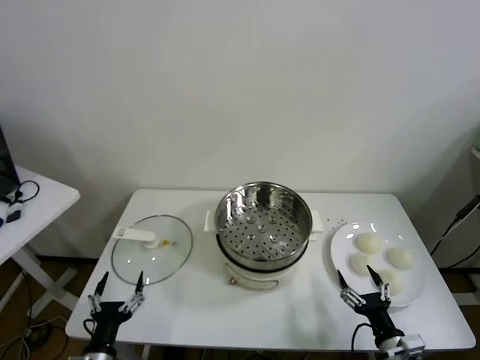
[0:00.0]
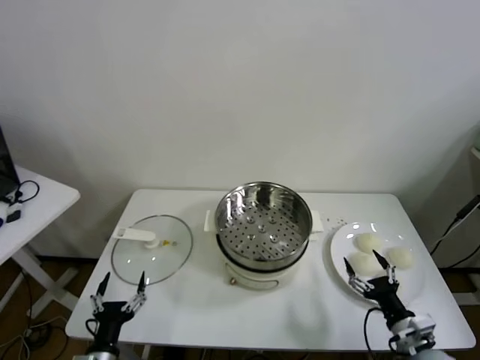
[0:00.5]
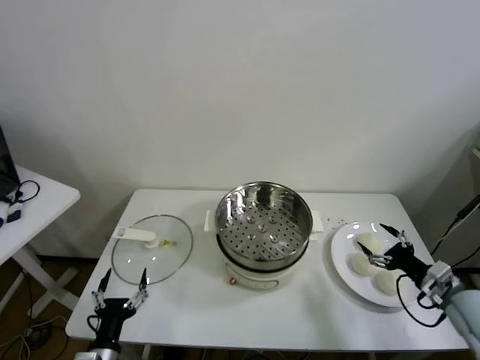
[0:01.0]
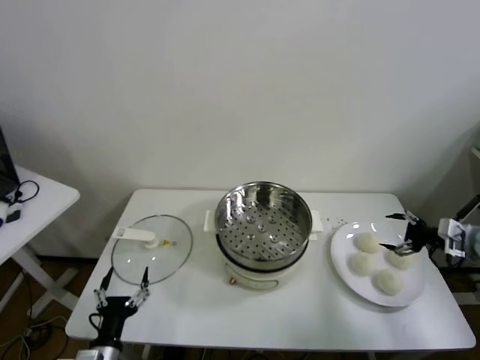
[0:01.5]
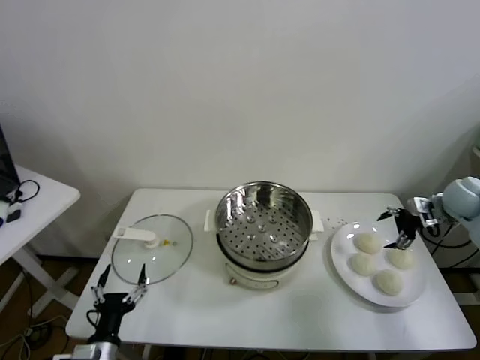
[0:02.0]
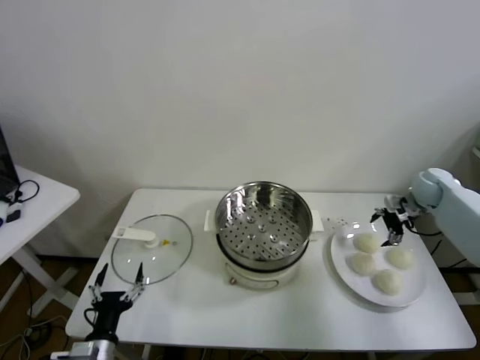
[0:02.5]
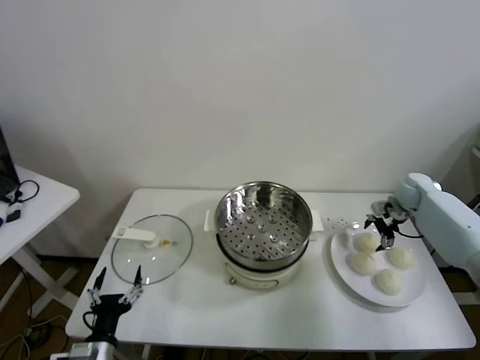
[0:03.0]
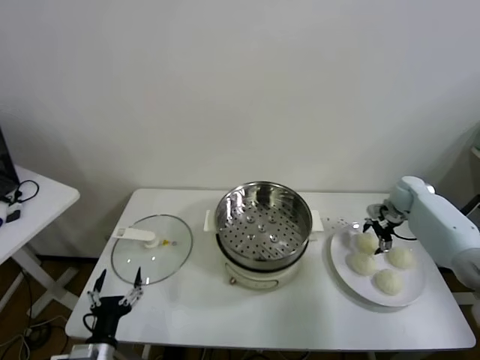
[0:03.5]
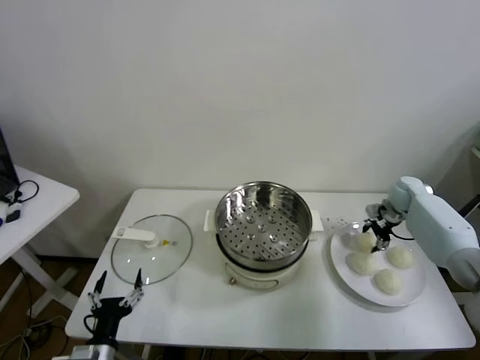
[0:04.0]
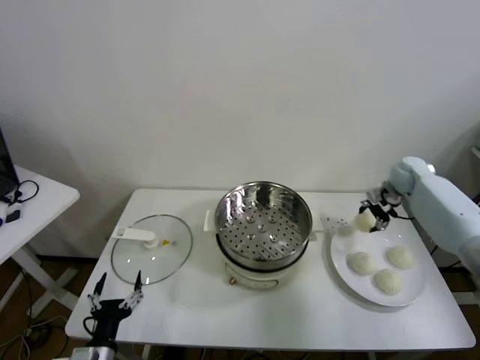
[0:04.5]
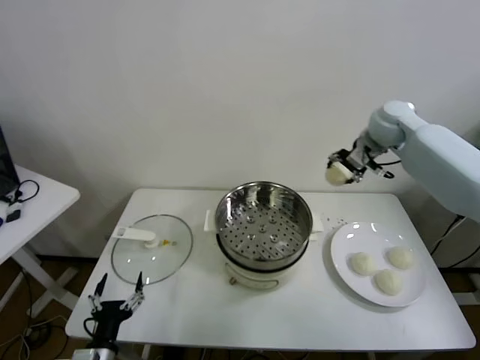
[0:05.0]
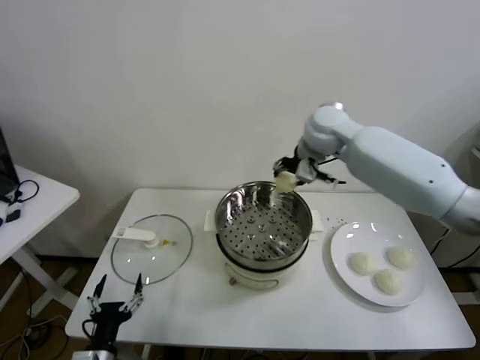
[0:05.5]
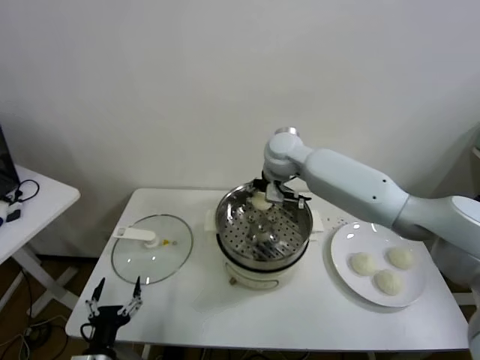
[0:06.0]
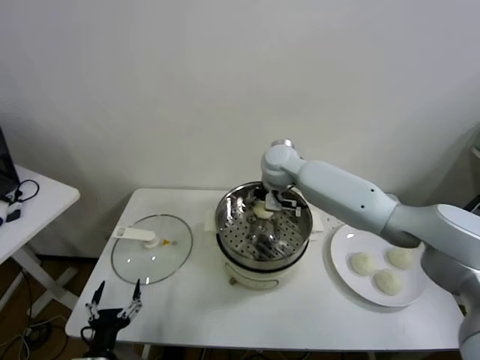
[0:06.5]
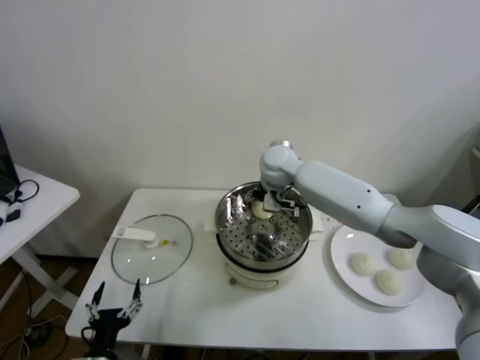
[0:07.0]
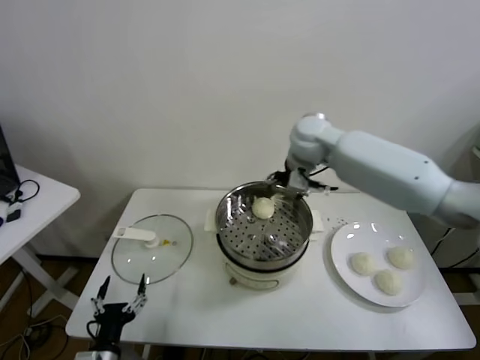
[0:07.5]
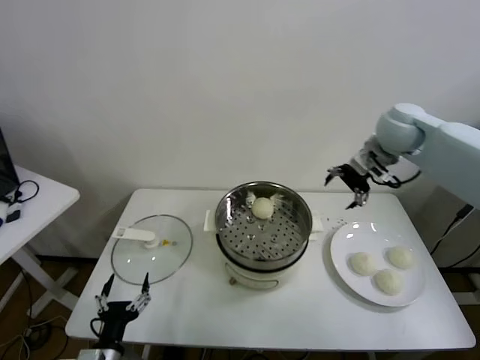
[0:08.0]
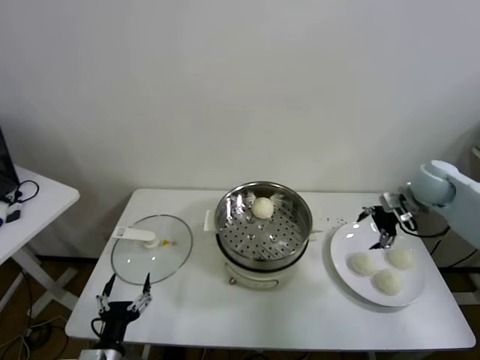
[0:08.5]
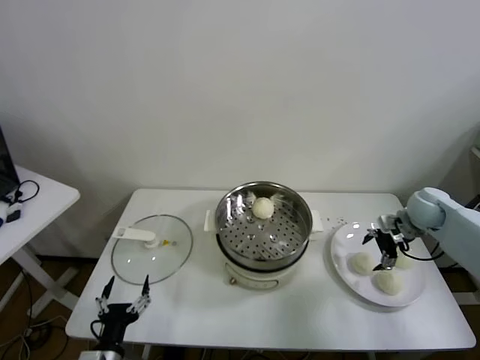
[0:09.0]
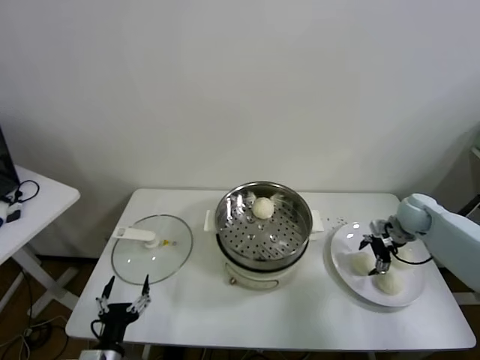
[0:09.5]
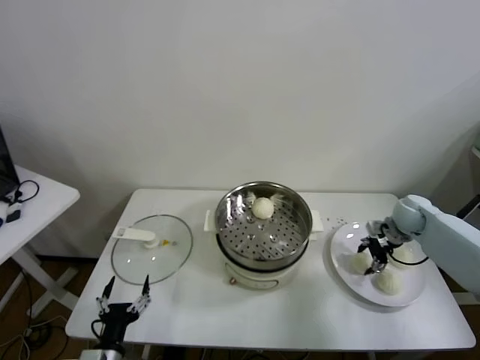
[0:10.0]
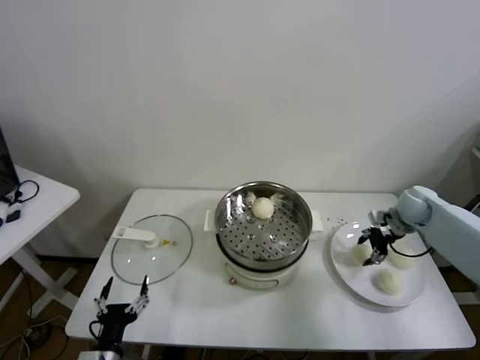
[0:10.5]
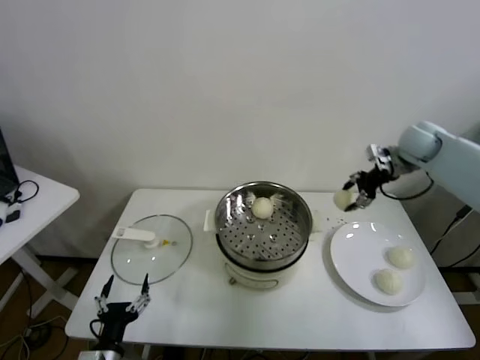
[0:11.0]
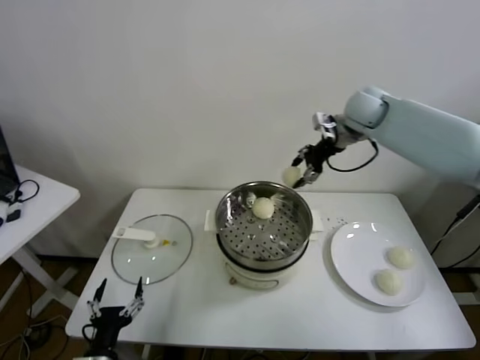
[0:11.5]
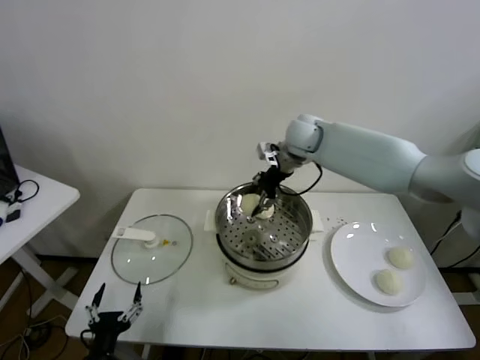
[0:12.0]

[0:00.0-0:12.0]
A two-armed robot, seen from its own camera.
Task of the whole recording: take steamed baozi put them in steamer.
Step, 0:00.0 to 0:03.5: Grasp the baozi in the plate with right gripper.
Step, 0:04.0 to 0:06.5: Place the baozi on the steamer with right gripper.
Step, 0:07.0 to 0:09.5: Grasp the baozi in the plate with right gripper.
0:02.0 to 0:04.0: The right gripper shifts about 10 cm downward, forward and to the left, and closes its fingers.
0:04.0 to 0:06.0: The right gripper moves to the left and upward, about 40 cm.
0:06.0 to 0:08.0: The right gripper goes some 25 cm to the right, and opens.
0:08.0 to 0:10.0: The right gripper goes roughly 25 cm downward and to the right, and closes.
0:10.0 to 0:12.0: The right gripper is displaced to the left and upward by roughly 35 cm.

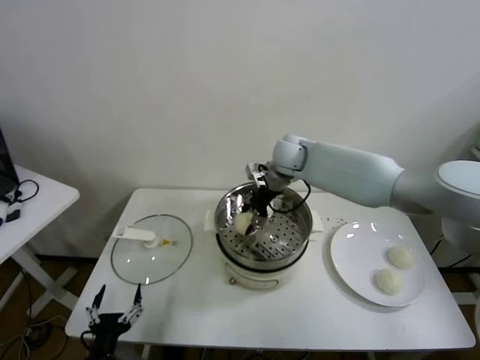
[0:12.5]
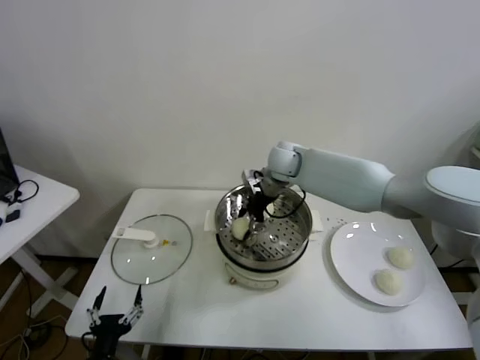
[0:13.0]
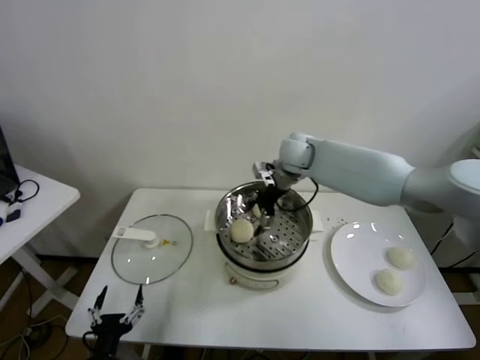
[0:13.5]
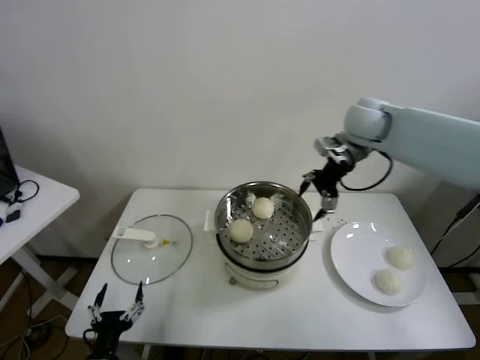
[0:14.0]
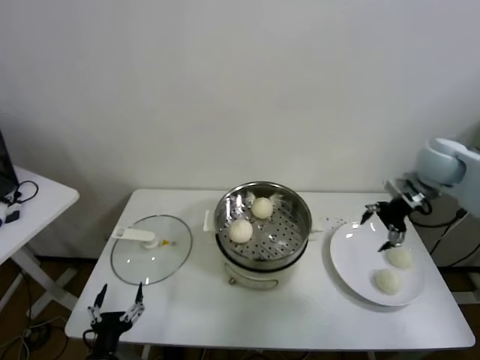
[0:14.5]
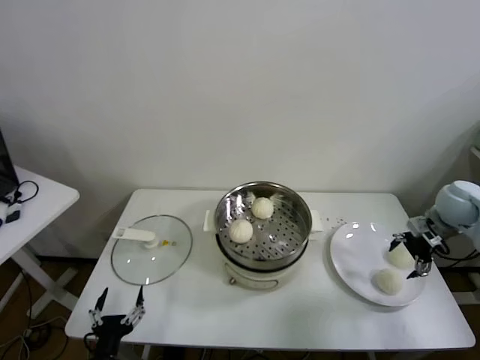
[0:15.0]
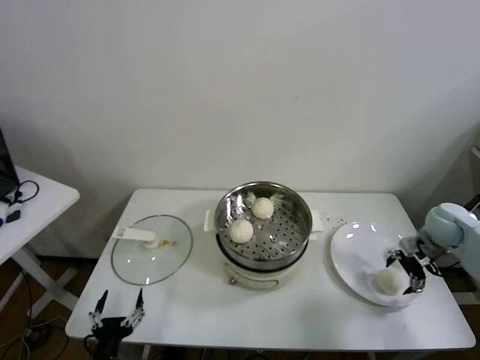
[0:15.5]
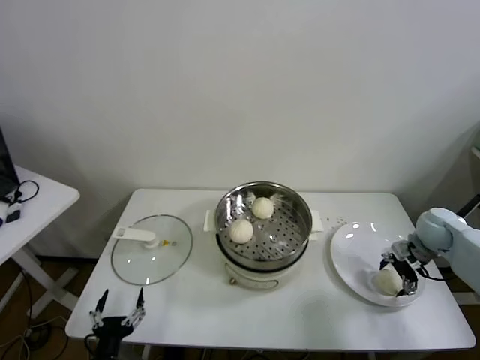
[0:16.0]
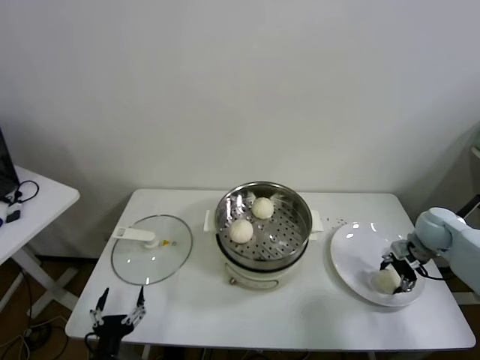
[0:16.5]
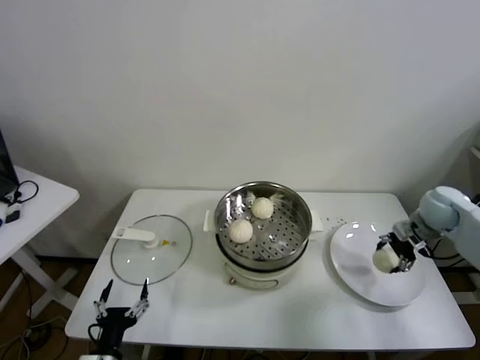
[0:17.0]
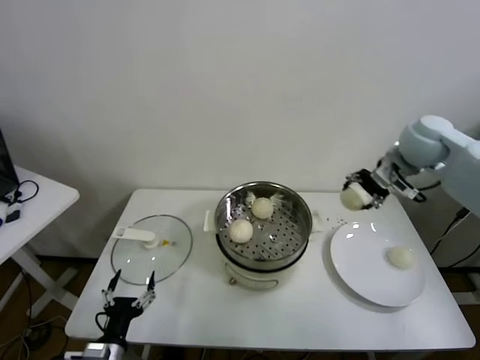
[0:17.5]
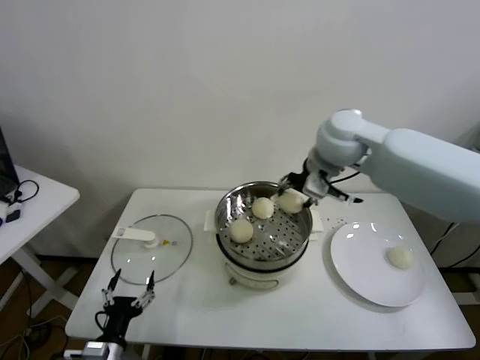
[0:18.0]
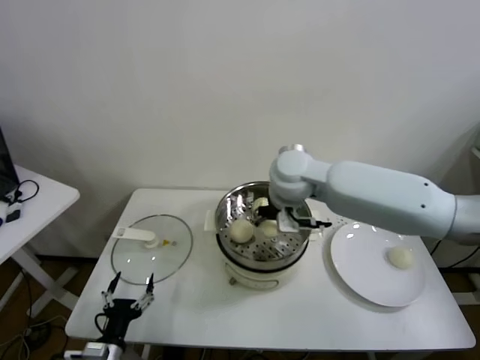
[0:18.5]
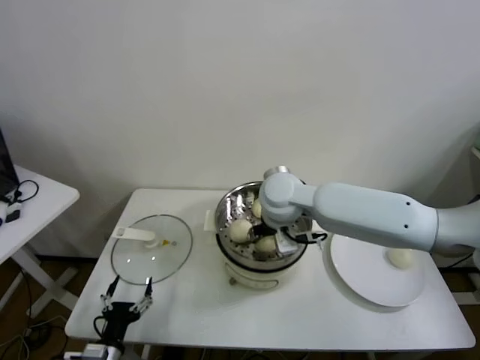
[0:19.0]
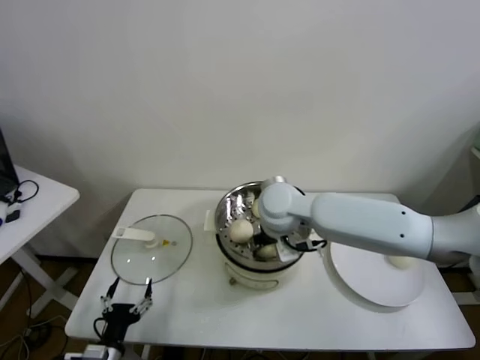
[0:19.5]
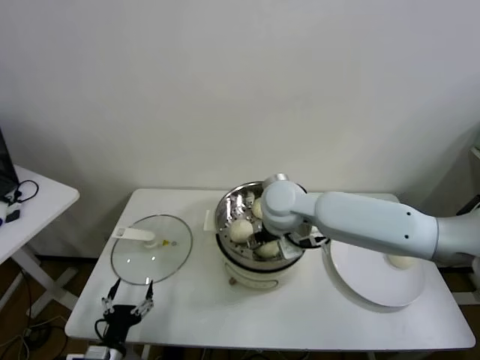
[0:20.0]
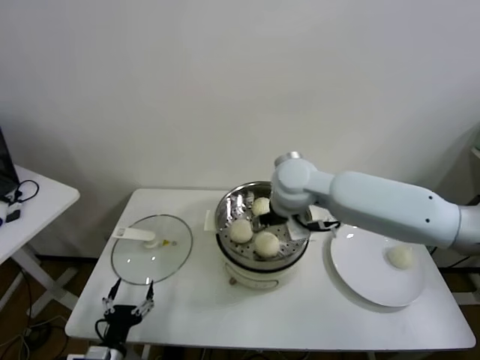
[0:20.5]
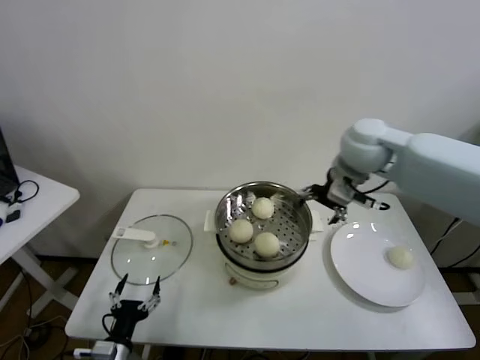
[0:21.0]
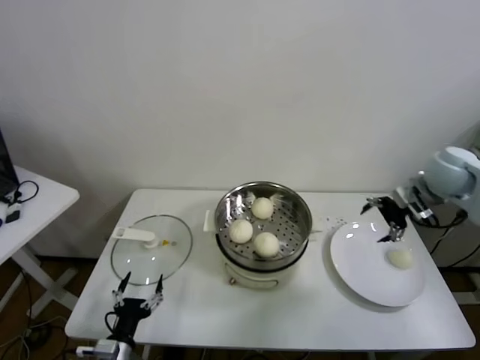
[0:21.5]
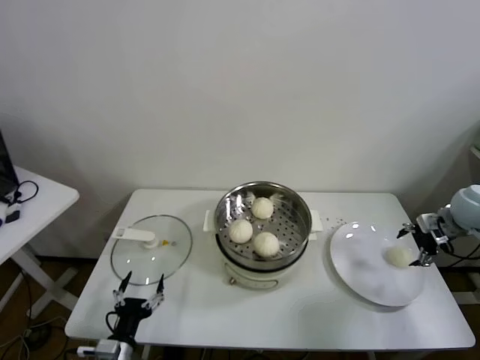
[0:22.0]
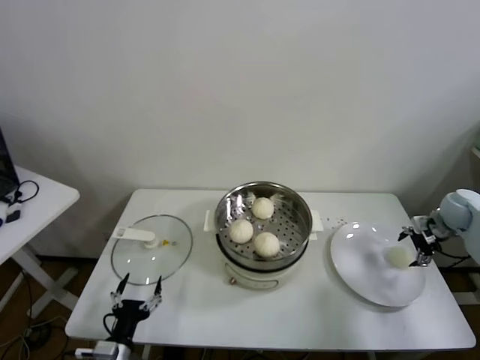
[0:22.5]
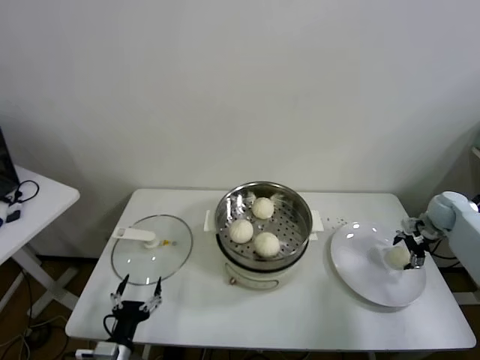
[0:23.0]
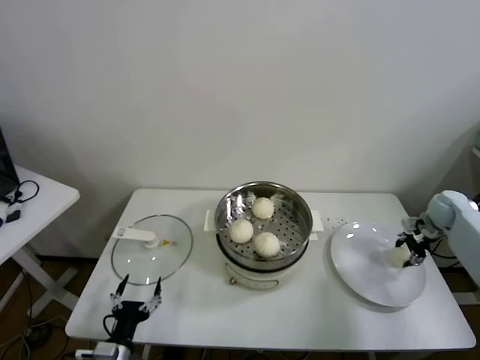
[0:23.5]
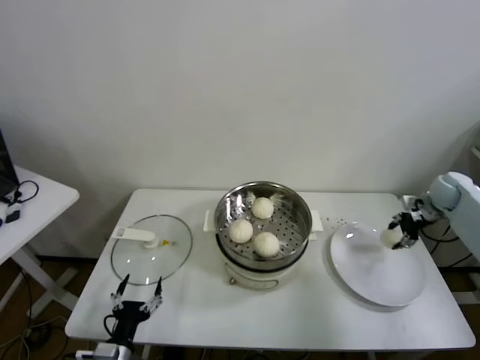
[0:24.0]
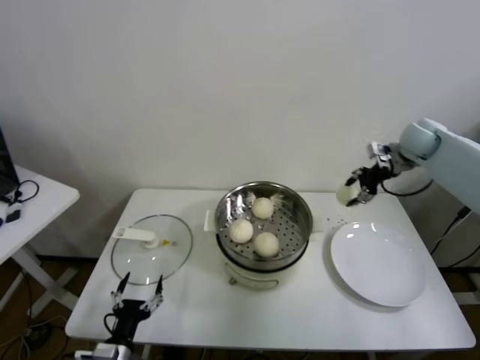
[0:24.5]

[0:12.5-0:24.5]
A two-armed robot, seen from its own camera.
Task of the whole recording: take steamed baozi put them in steamer.
Step, 0:13.5 to 0:16.0: Grasp the baozi in the plate with right gripper.
Step, 0:16.5 to 0:19.5: Place the baozi on the steamer with right gripper.
Step, 0:20.0 to 0:23.0: Grasp the baozi in the plate with right gripper.
0:12.5 to 0:14.5: The right gripper shifts roughly 30 cm to the right, and opens.
0:14.5 to 0:16.5: The right gripper is displaced downward by some 15 cm, and closes up.
0:16.5 to 0:18.5: The right gripper moves to the left and upward, approximately 40 cm.
0:18.5 to 0:20.5: The right gripper opens its fingers.
0:20.5 to 0:22.5: The right gripper moves to the right, approximately 40 cm.
0:22.5 to 0:24.5: The right gripper travels upward, to the left and forward by about 20 cm, and closes up.

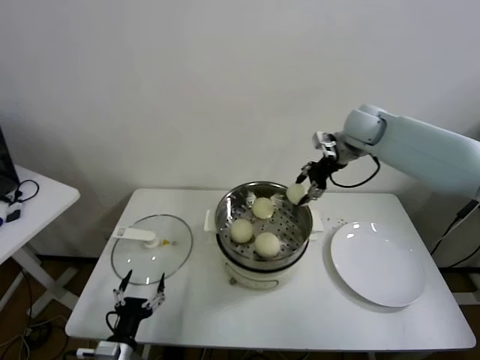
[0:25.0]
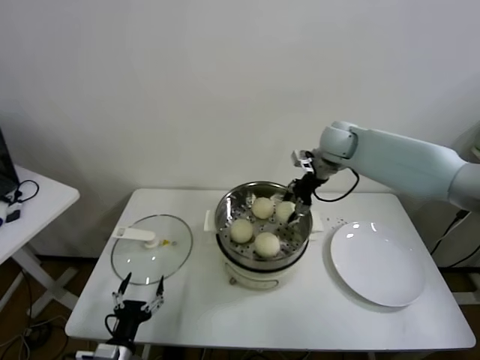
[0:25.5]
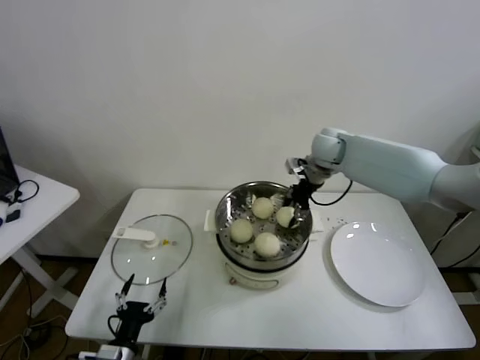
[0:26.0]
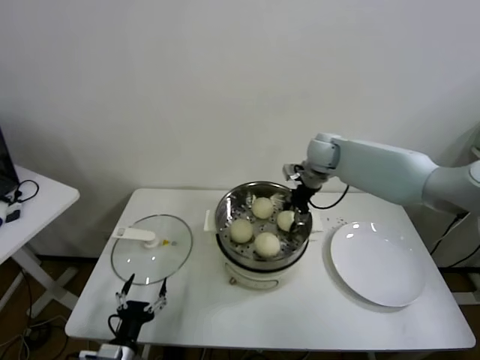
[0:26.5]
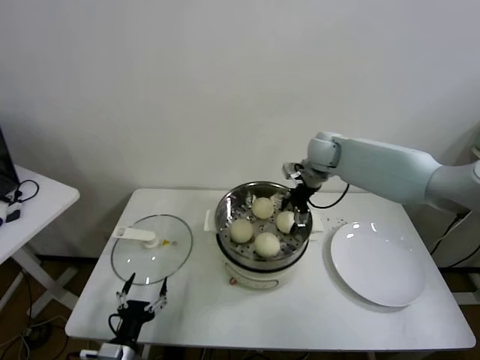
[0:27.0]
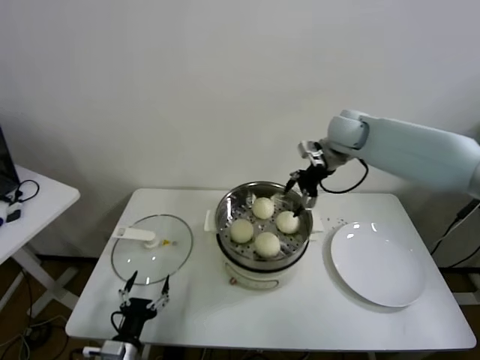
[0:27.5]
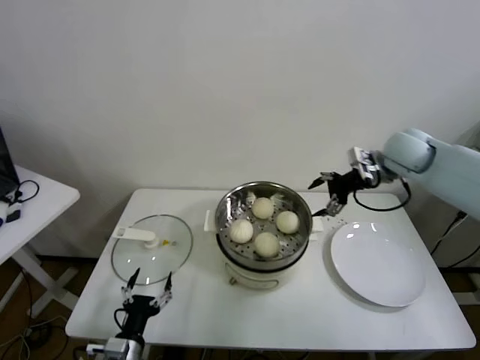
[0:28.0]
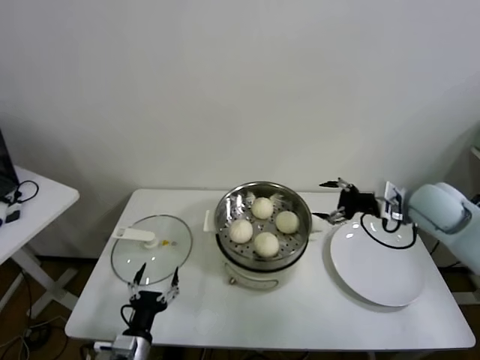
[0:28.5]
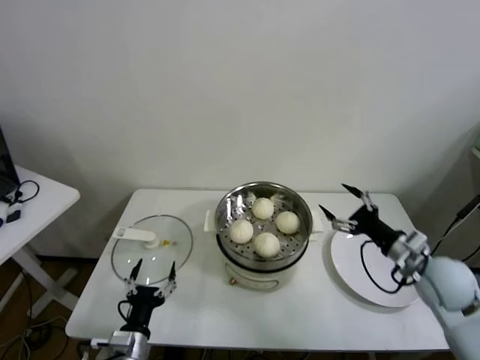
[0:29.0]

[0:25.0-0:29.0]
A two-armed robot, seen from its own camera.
Task of the whole recording: take steamed baozi put them in steamer.
0:25.0 to 0:27.0: The right gripper travels to the left and downward by some 10 cm, and opens up.
0:27.0 to 0:29.0: The right gripper moves backward and to the right, about 30 cm.
